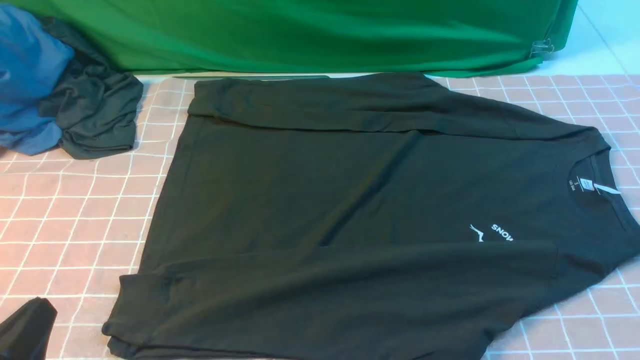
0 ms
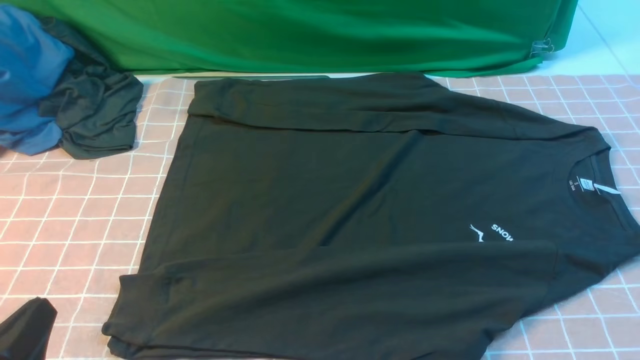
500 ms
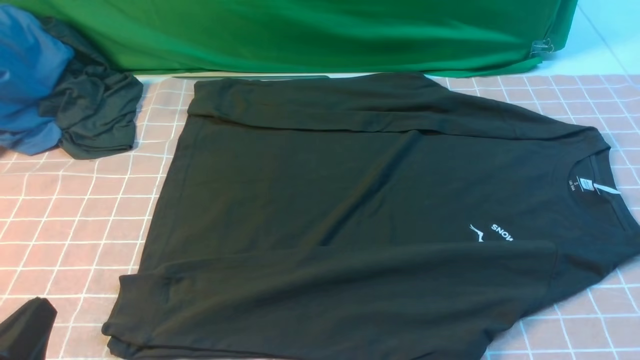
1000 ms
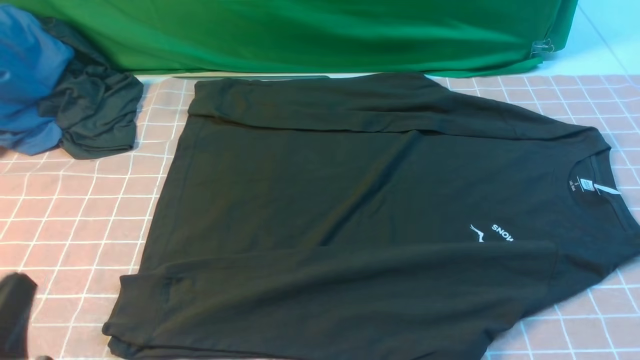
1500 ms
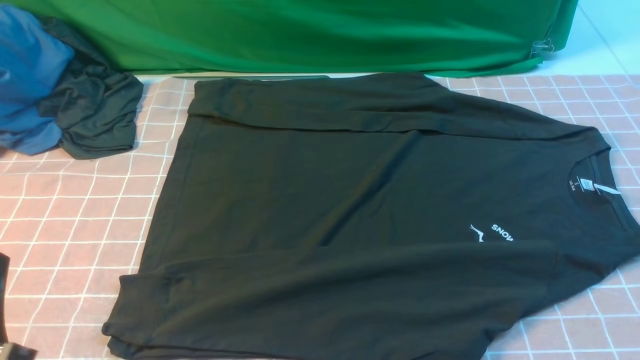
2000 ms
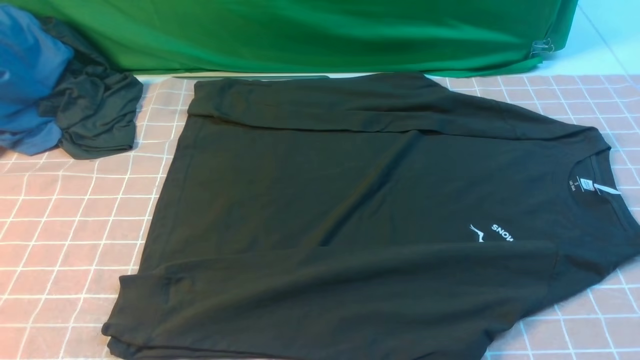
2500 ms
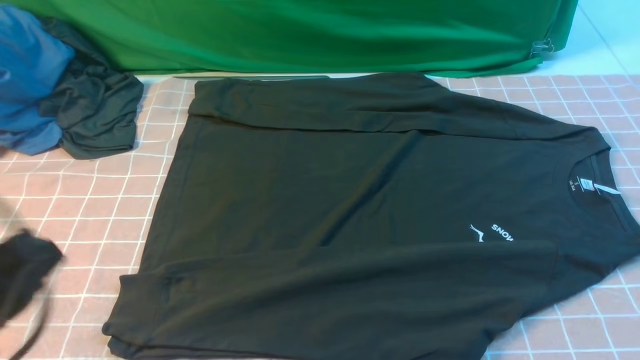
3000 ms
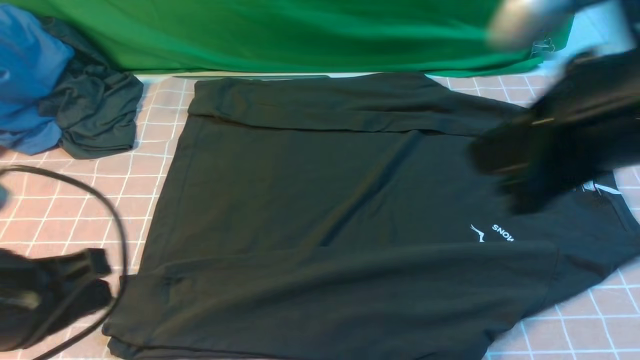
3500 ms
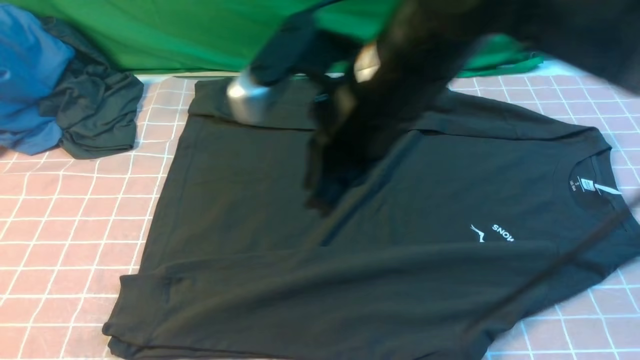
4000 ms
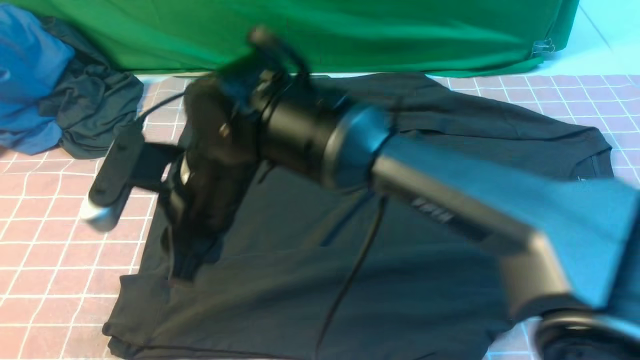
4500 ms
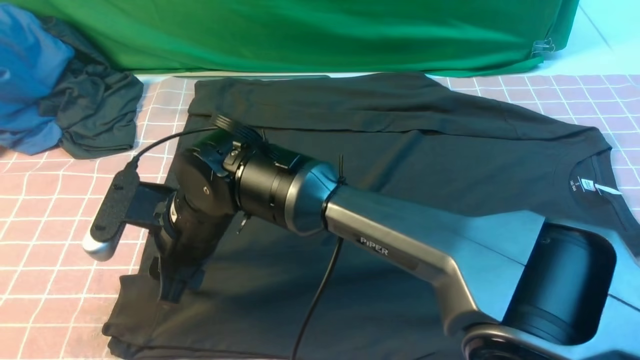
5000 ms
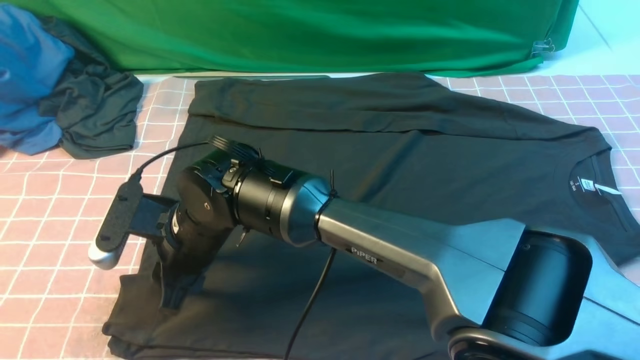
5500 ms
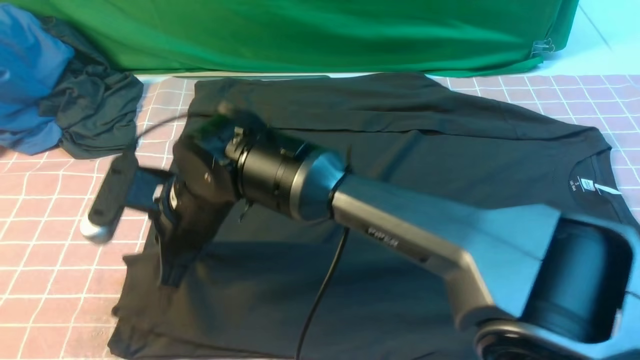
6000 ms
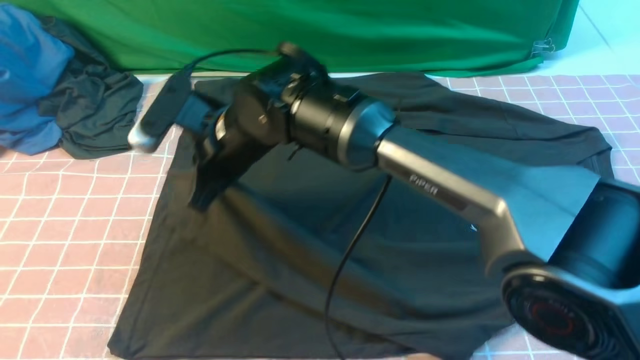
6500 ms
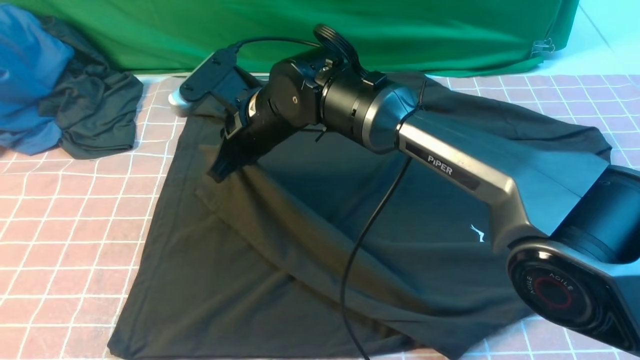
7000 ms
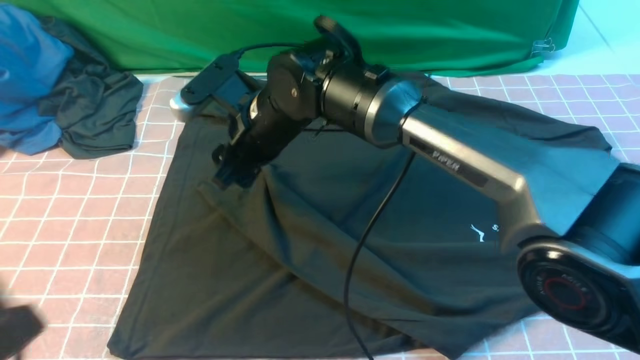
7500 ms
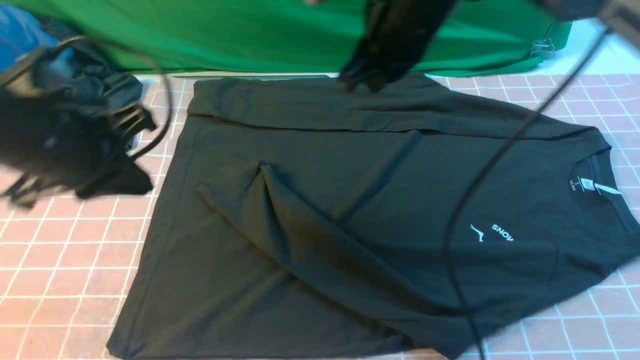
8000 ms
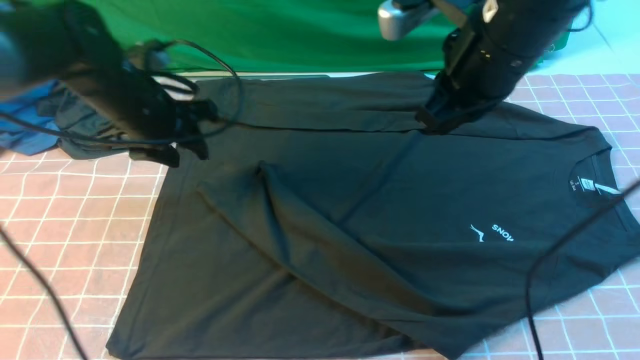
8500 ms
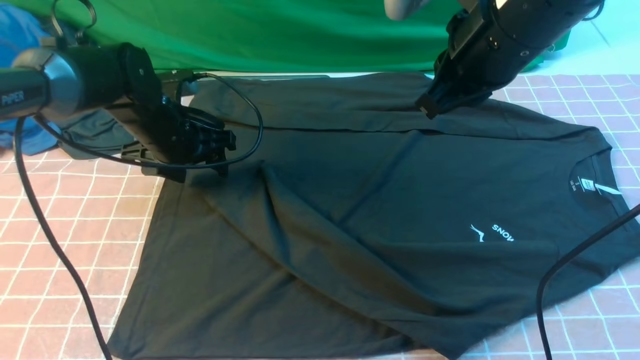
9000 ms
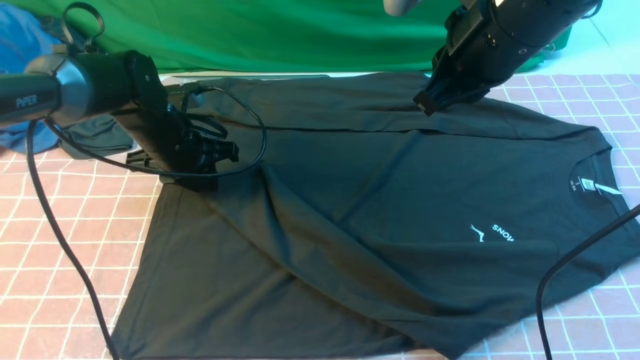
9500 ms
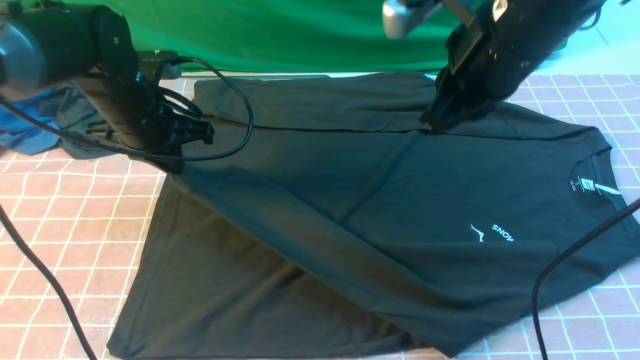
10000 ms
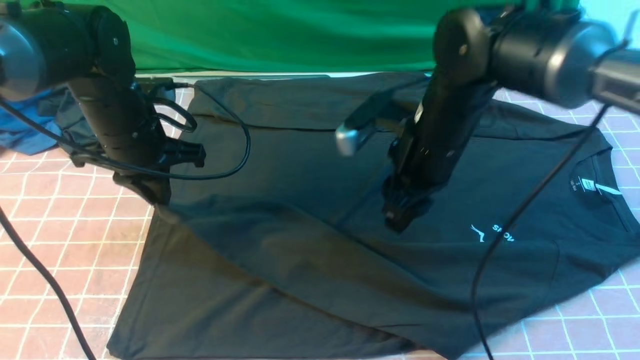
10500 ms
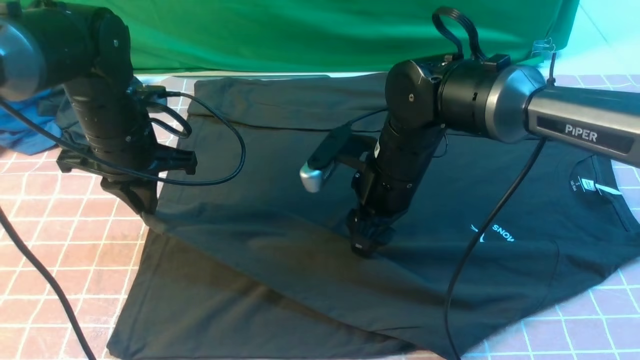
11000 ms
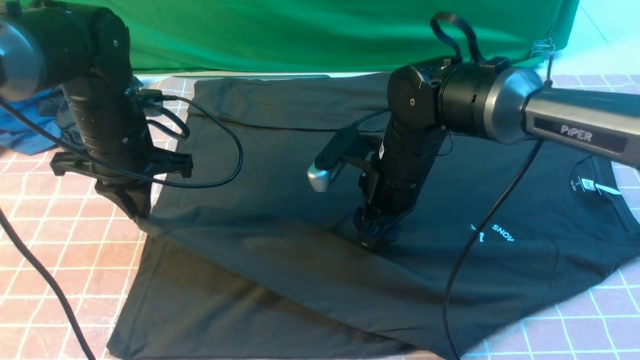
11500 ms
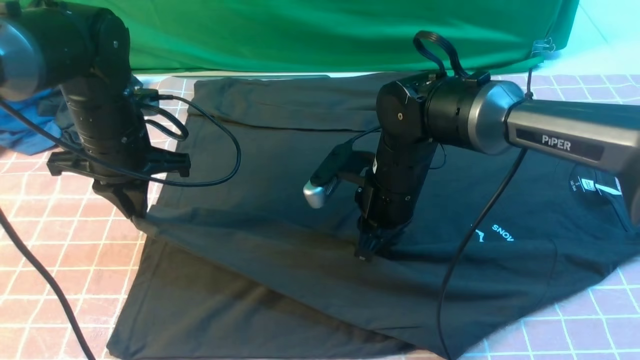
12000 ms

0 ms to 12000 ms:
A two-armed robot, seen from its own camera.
Step, 0 ms to 6000 ms: Use your right arm to clamp the cuff closest to him.
Step, 6500 ms to 7500 ms: use the right arm to drag and place the cuff at thecentered position on the left edge of the fabric.
Step, 8000 ms to 9500 ms: use the left arm to clamp the cuff closest to it.
2000 ms to 4000 ms: The right gripper travels to the left, forward and upward by approximately 40 cm, and closes, while the left gripper goes about 10 cm upward.
4000 ms to 6000 ms: The right gripper heads to the left and downward, covering roughly 20 cm, and opens, then closes once more.
6000 ms to 8000 ms: The right gripper travels to the right and upward by about 25 cm, and opens, then closes once more. The left gripper goes roughly 30 cm forward.
8000 ms to 10000 ms: The left gripper heads forward and downward, covering about 15 cm, and opens, then closes again, while the right gripper goes about 5 cm to the right.
10000 ms to 12000 ms: The right gripper travels downward by roughly 15 cm, and opens, then closes once more.

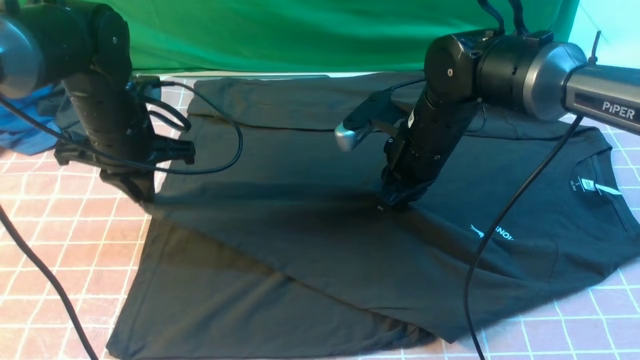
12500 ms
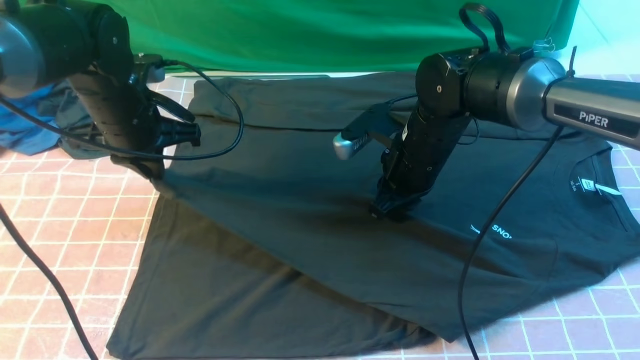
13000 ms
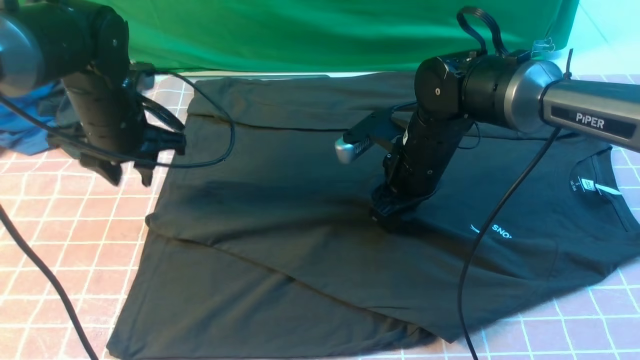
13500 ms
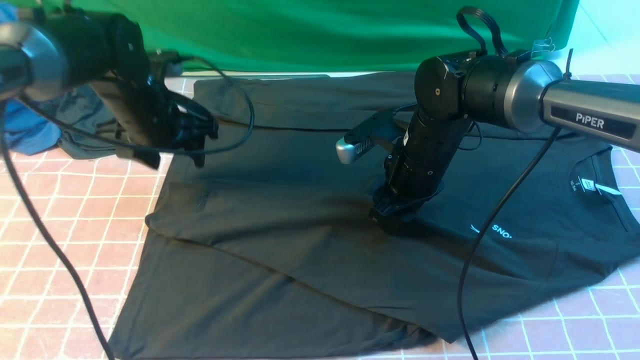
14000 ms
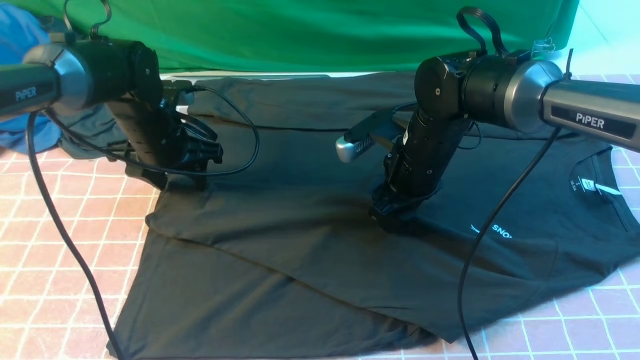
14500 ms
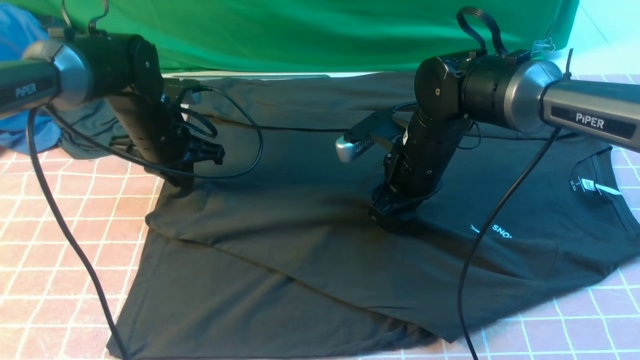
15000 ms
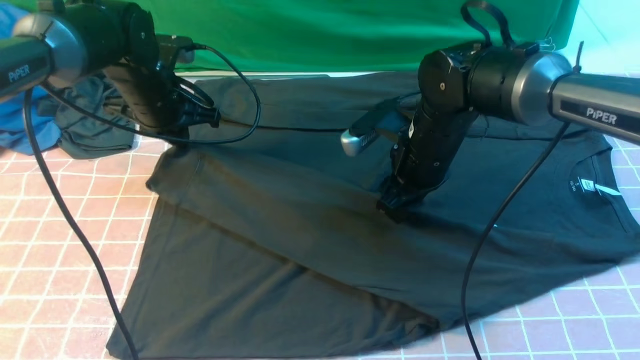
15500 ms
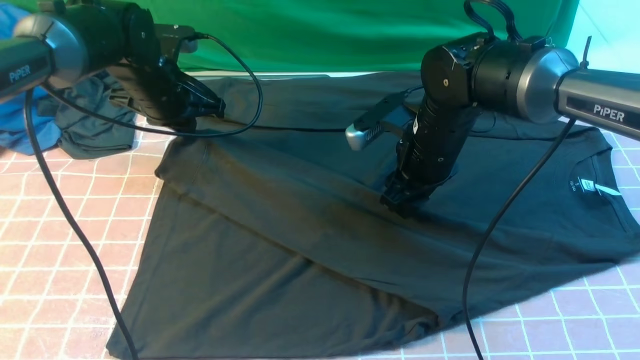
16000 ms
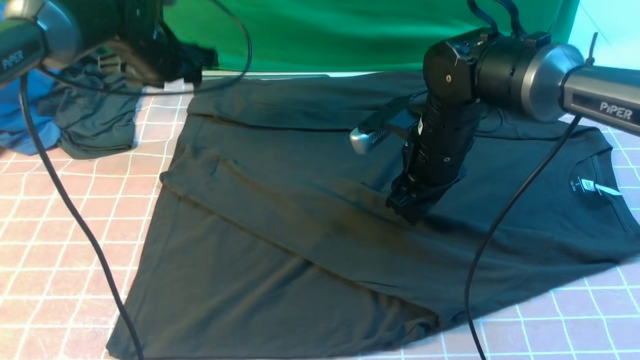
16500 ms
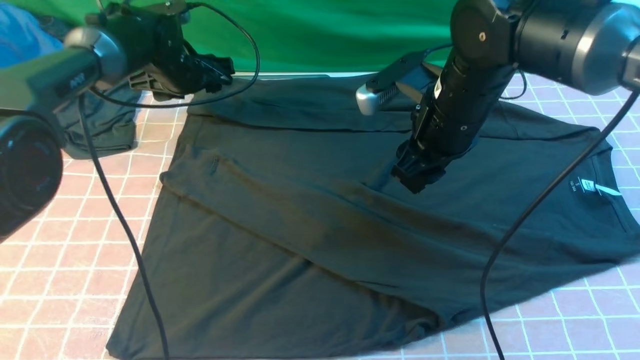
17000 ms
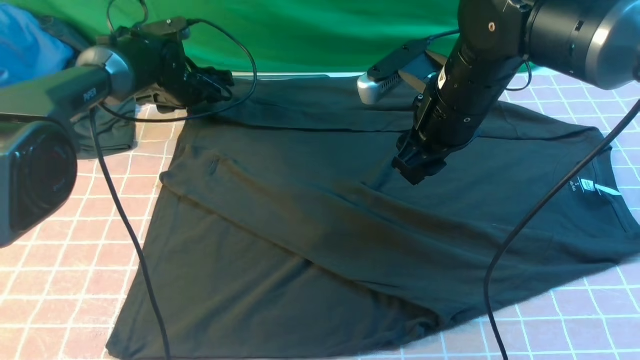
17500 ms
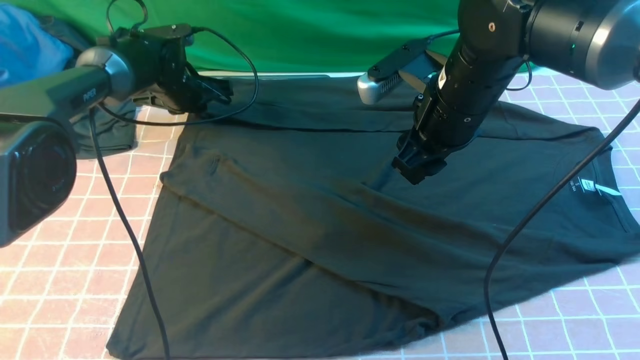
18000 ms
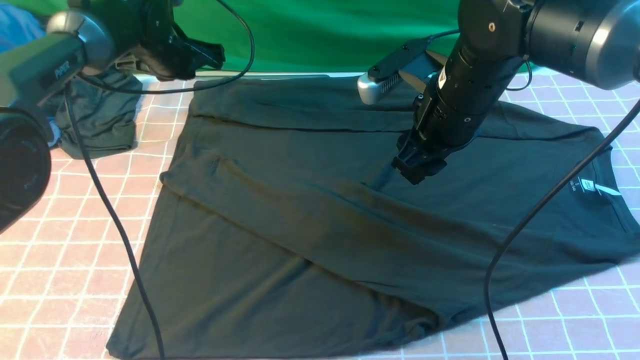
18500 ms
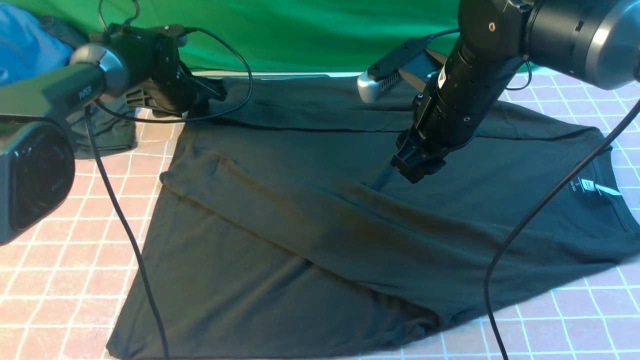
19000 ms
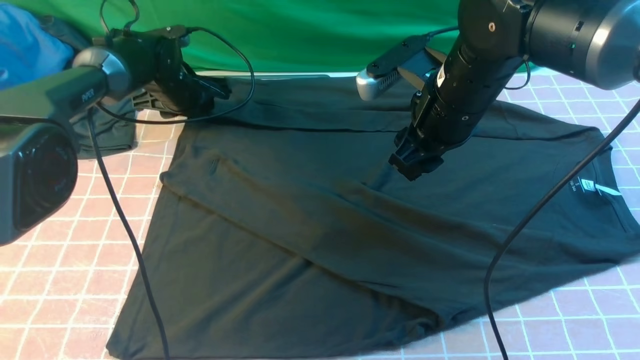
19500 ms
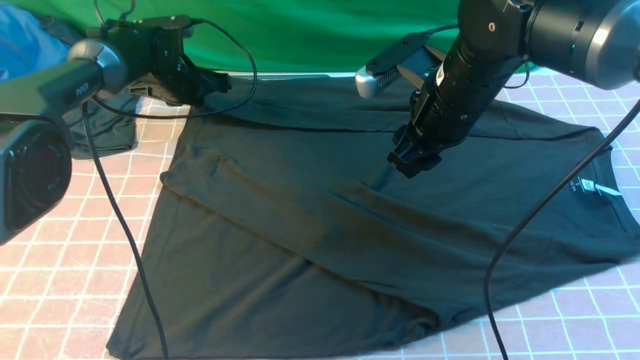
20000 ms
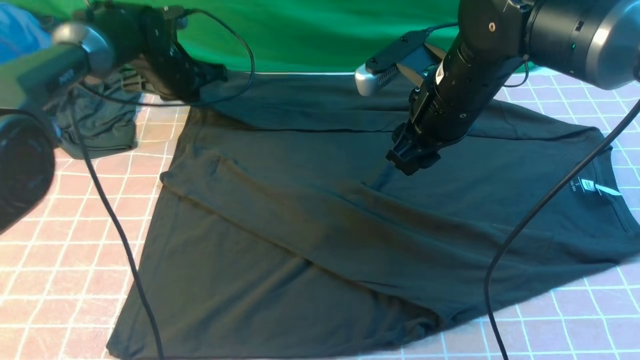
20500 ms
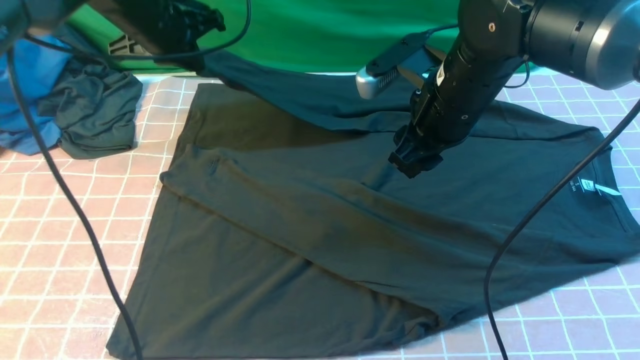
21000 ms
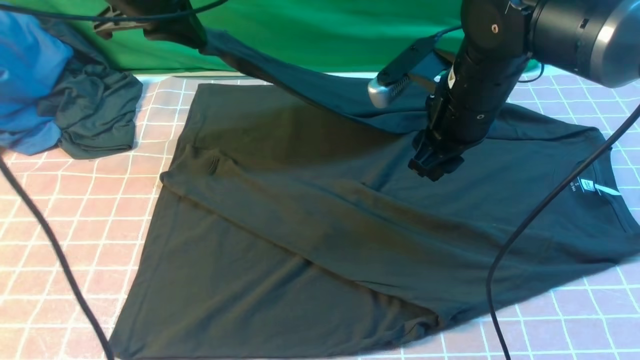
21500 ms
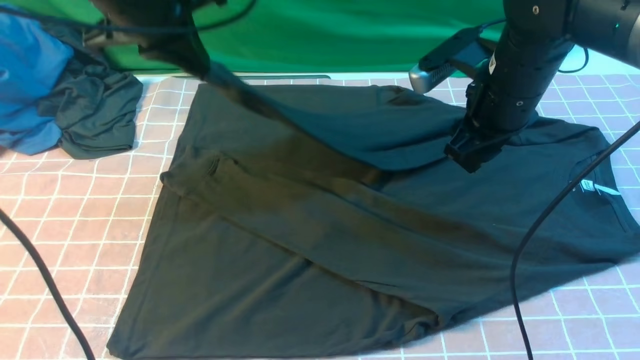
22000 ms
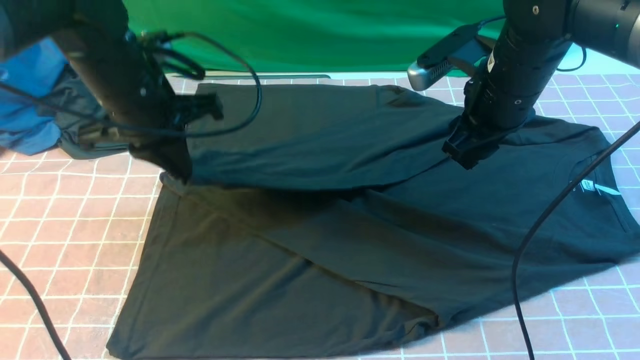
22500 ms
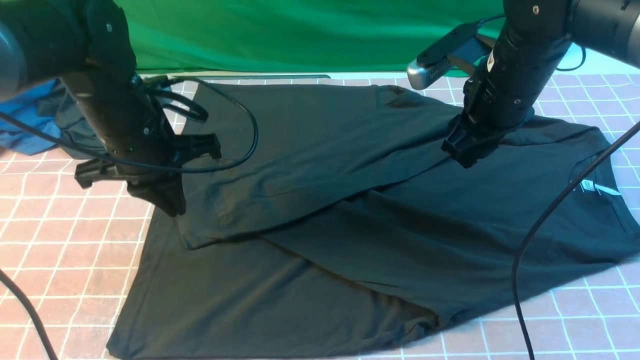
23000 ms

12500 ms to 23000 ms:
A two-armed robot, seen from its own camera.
12500 ms to 14500 ms: The left gripper travels downward by some 5 cm, and opens its fingers, while the right gripper opens.
14500 ms to 16500 ms: The left gripper shifts roughly 10 cm upward and forward, and closes and opens again.
16500 ms to 19000 ms: The right gripper heads upward, covering some 5 cm; the left gripper swings up and down, some 10 cm each way, with 2 reversals, and closes, then reopens.
19000 ms to 21000 ms: The left gripper shifts some 15 cm upward and backward, and closes up.
21000 ms to 23000 ms: The left gripper moves backward, approximately 15 cm, while the right gripper moves roughly 5 cm.
